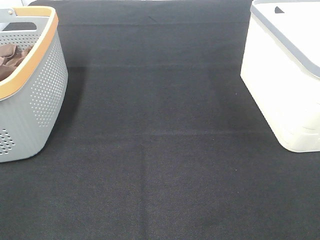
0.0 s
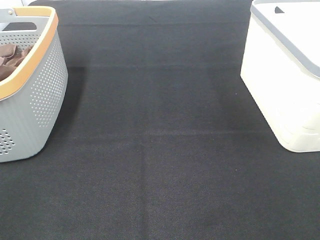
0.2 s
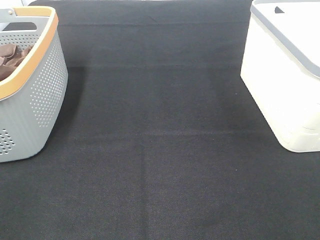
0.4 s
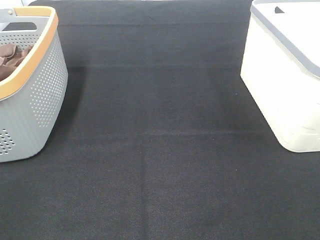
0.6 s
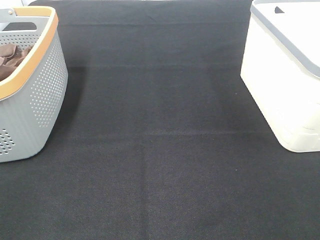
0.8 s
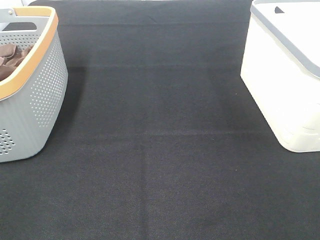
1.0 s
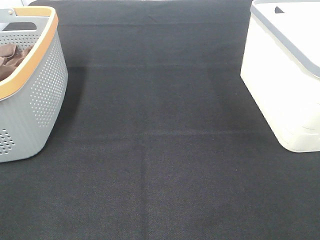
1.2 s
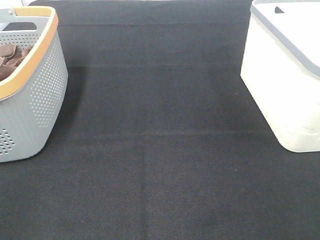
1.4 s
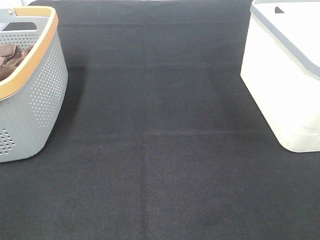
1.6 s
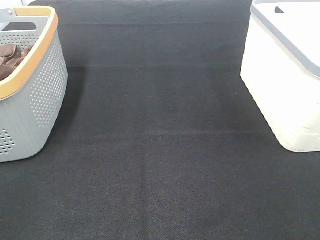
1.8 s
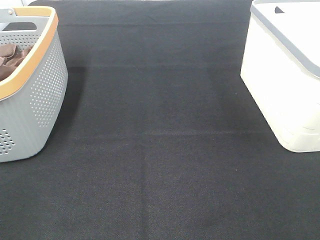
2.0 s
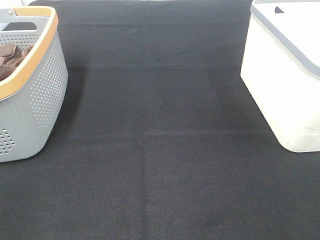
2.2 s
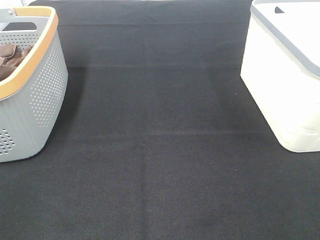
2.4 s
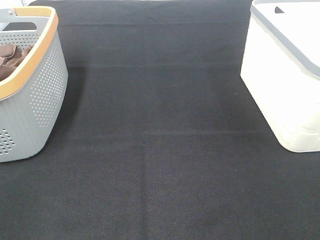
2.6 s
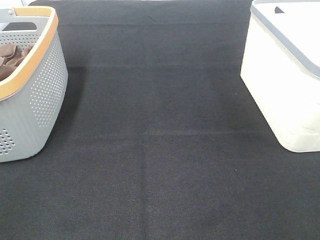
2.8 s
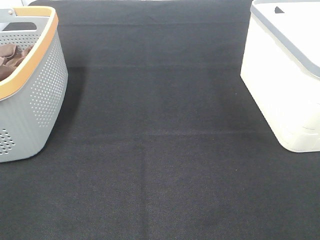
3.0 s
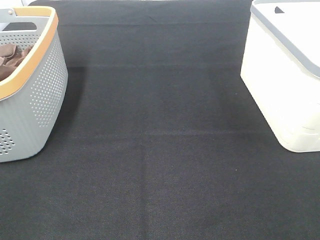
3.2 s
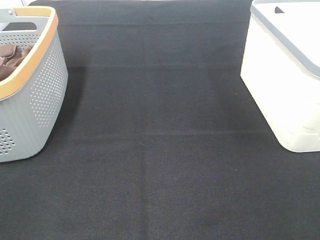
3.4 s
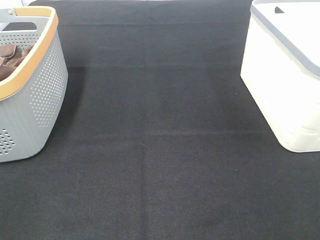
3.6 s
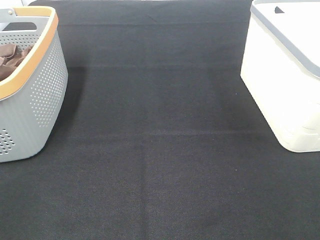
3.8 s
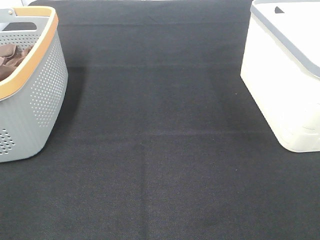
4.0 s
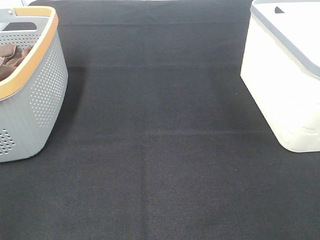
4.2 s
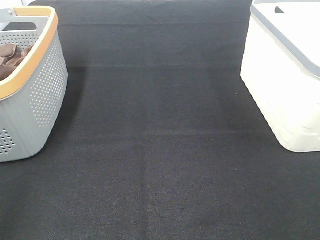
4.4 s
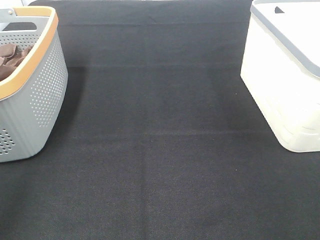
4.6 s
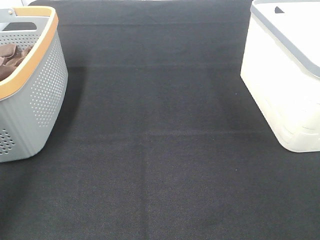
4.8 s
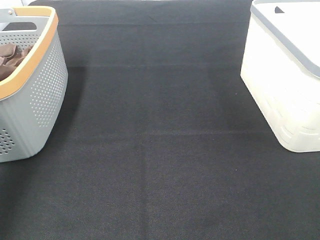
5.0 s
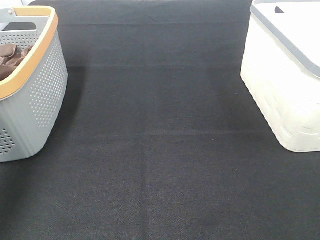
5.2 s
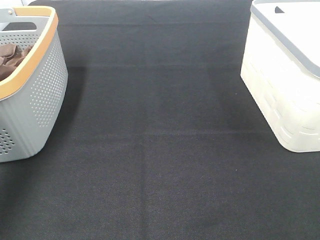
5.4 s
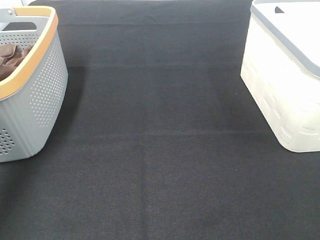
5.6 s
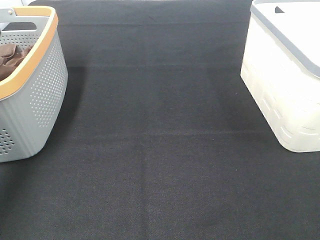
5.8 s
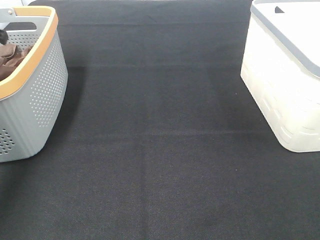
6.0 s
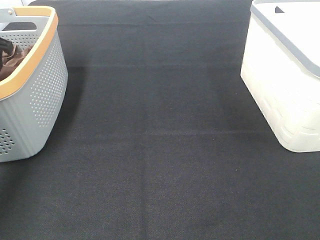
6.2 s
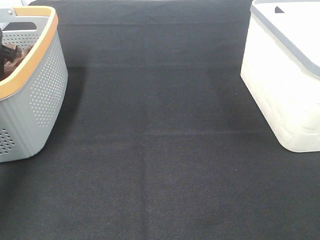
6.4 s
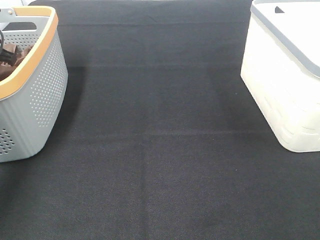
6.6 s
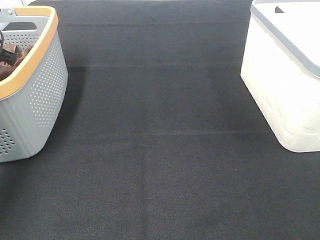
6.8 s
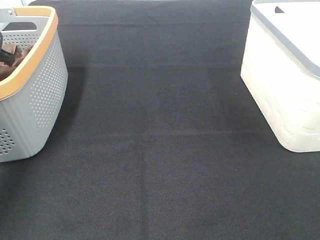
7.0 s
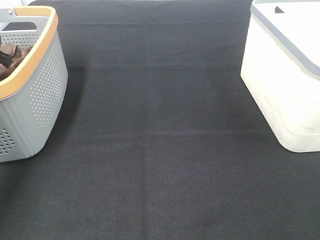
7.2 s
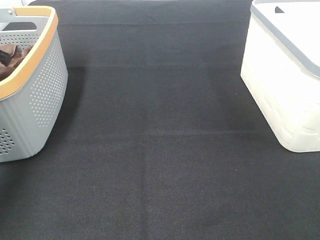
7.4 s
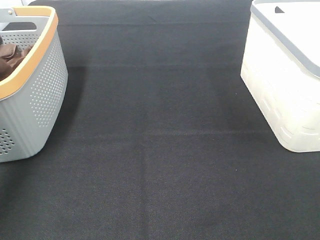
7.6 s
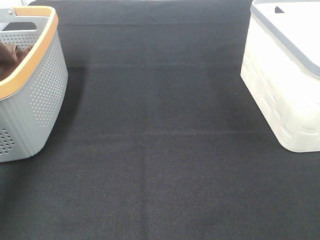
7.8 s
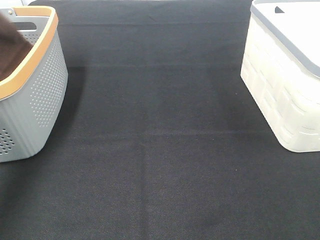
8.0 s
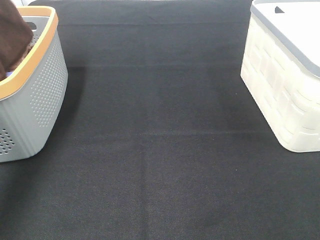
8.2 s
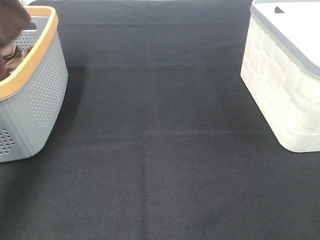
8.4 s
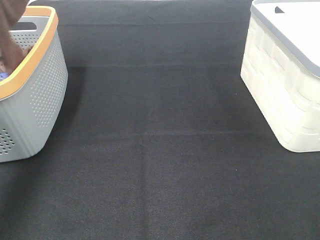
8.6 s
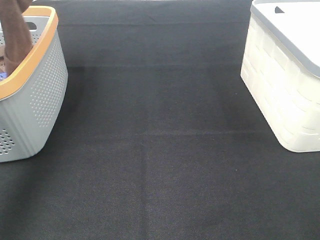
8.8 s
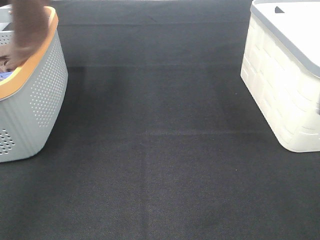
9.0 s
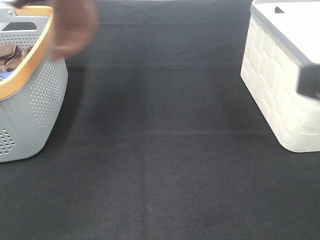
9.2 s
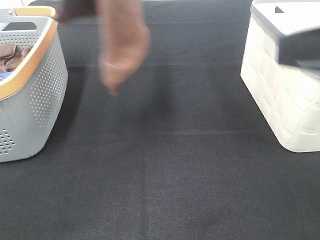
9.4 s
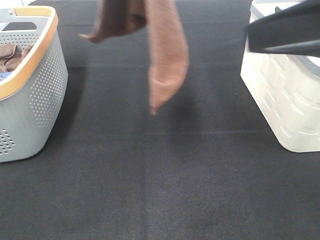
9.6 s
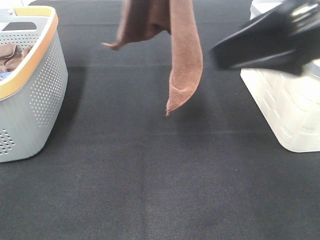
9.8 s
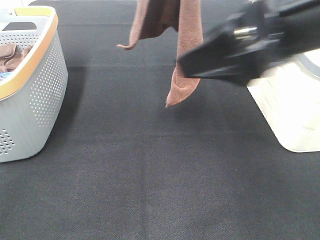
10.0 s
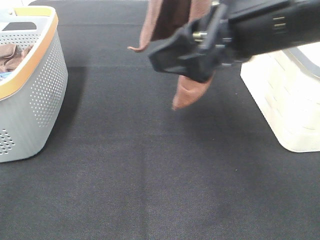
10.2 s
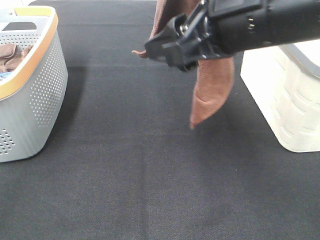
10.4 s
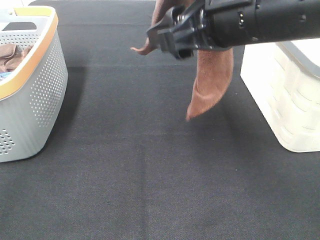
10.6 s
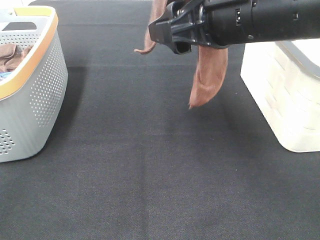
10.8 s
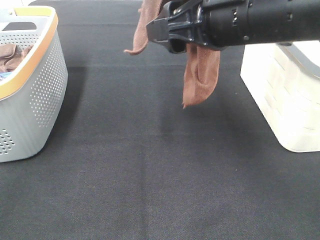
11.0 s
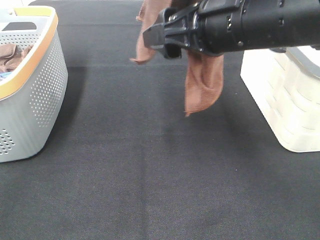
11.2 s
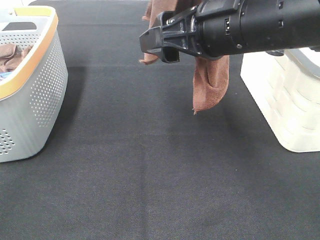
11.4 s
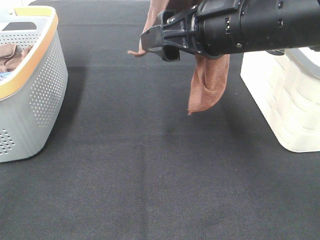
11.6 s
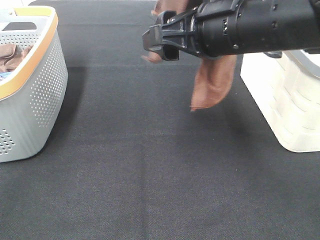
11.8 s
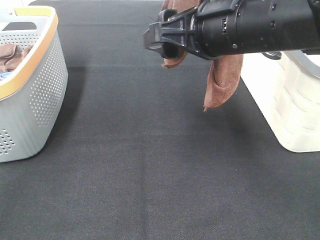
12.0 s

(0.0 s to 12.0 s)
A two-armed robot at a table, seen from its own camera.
Task of the whole recording: Remove the towel and place it.
Step, 7.8 s - 11.4 s: Right hand: grab a corner of the brown towel and straighten it.
0.0 s - 3.0 s: The two grippers keep their place.
4.4 s - 6.0 s: The left gripper shifts roughly 35 cm forward.
7.6 s - 9.0 s: The right gripper moves forward, roughly 10 cm. Meanwhile the left gripper goes some 30 cm upward, to the right and backward.
9.0 s - 10.4 s: The right gripper is displaced forward and to the left by roughly 20 cm. Meanwhile the left gripper heads to the right, covering approximately 20 cm.
10.4 s - 12.0 s: The grippers stay close to where they were, moving slightly.

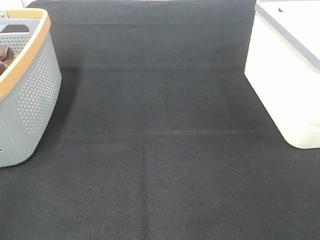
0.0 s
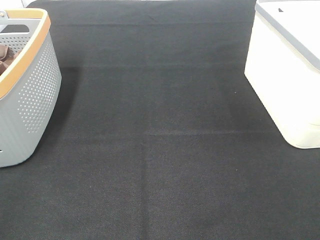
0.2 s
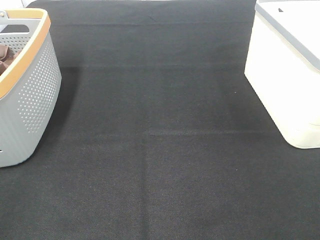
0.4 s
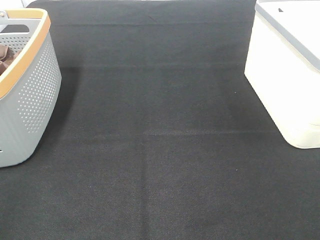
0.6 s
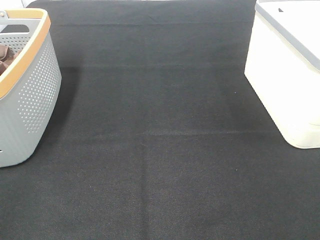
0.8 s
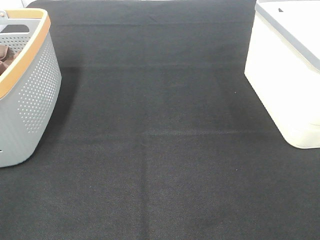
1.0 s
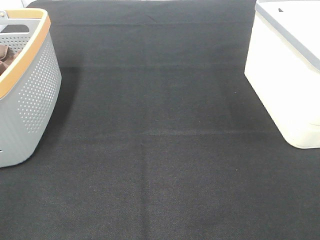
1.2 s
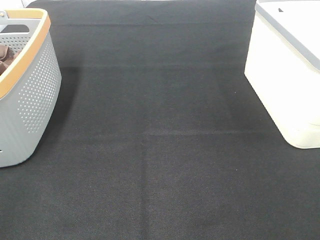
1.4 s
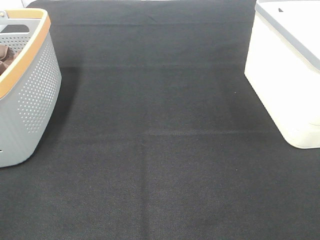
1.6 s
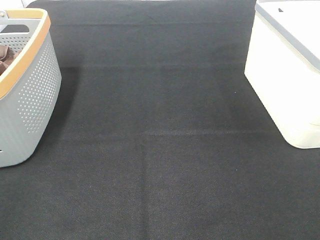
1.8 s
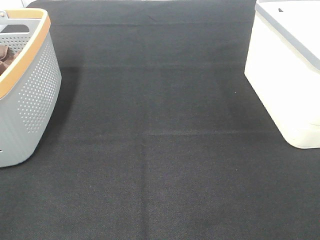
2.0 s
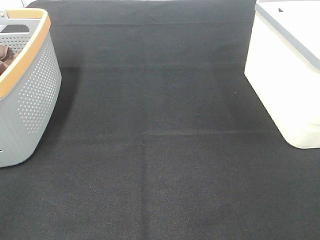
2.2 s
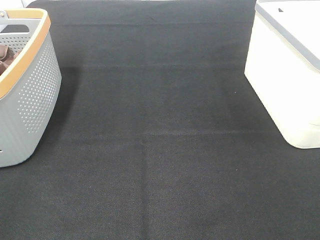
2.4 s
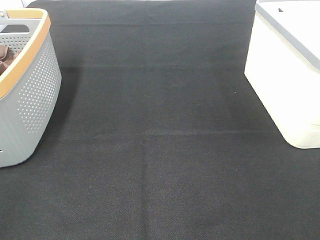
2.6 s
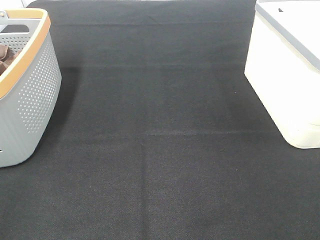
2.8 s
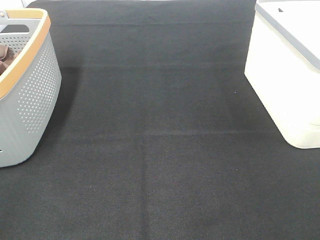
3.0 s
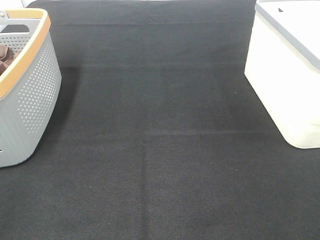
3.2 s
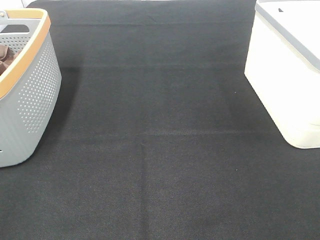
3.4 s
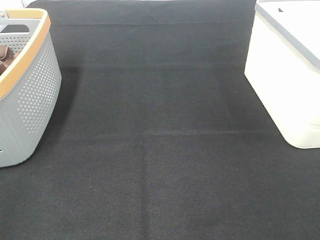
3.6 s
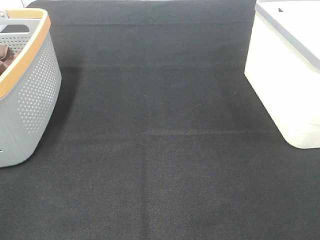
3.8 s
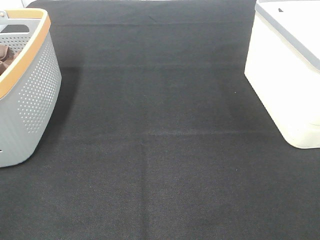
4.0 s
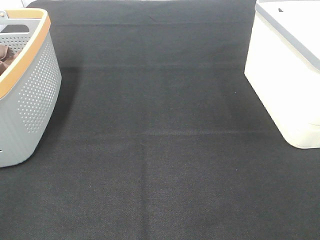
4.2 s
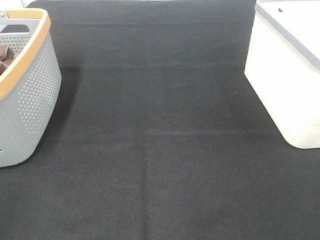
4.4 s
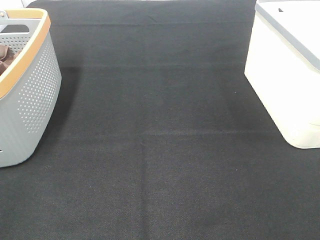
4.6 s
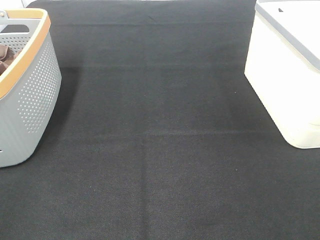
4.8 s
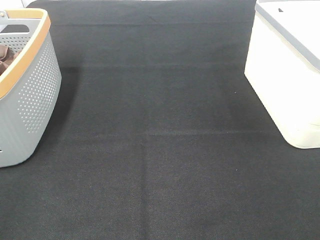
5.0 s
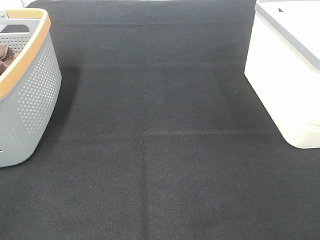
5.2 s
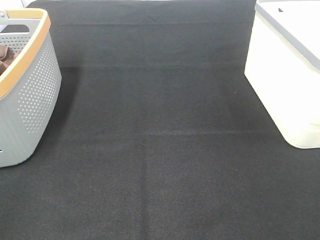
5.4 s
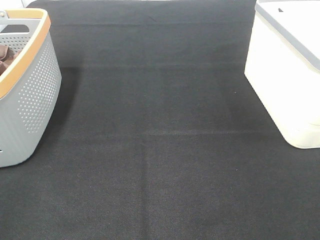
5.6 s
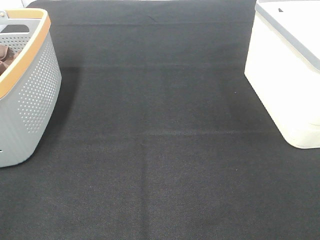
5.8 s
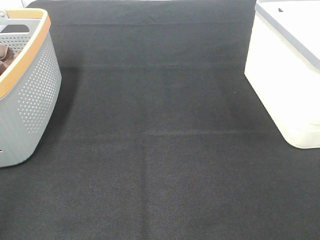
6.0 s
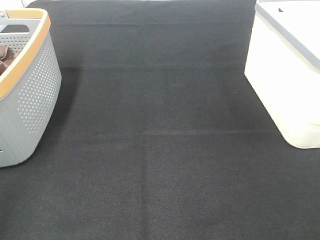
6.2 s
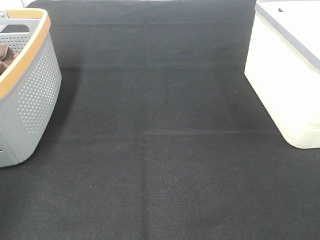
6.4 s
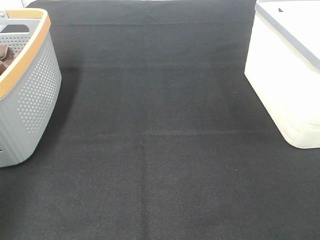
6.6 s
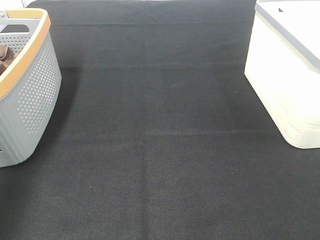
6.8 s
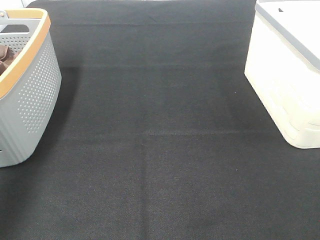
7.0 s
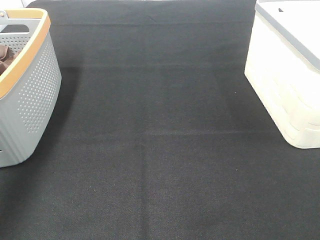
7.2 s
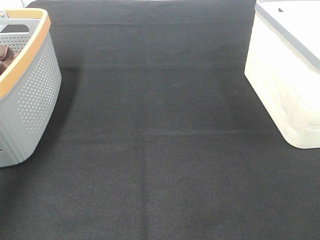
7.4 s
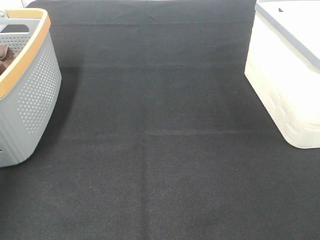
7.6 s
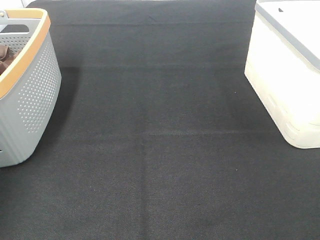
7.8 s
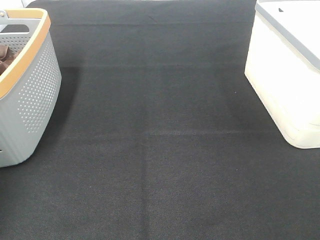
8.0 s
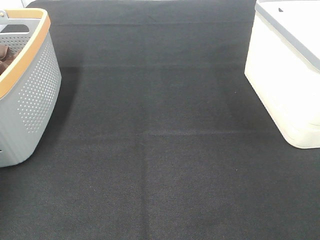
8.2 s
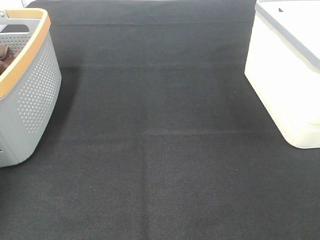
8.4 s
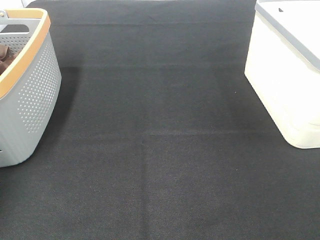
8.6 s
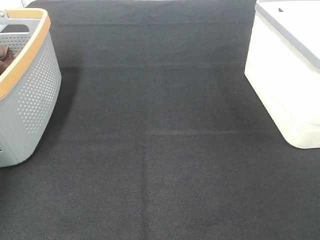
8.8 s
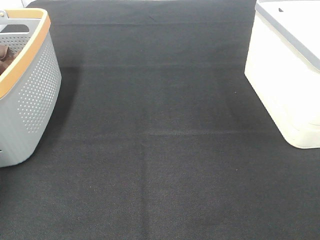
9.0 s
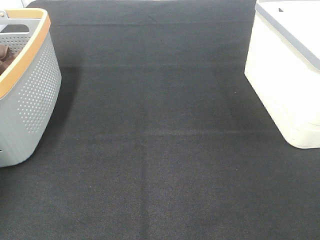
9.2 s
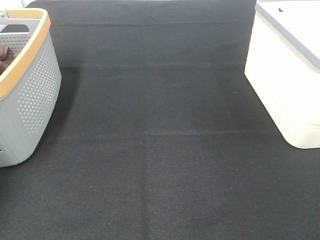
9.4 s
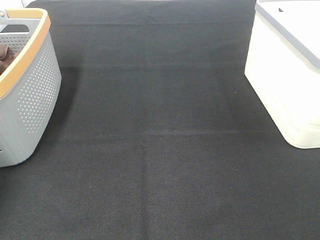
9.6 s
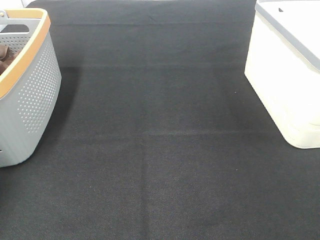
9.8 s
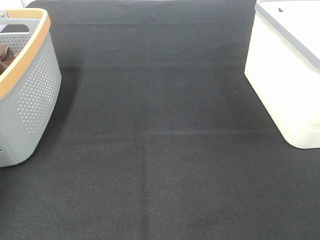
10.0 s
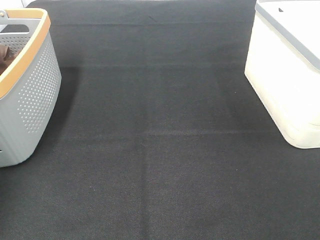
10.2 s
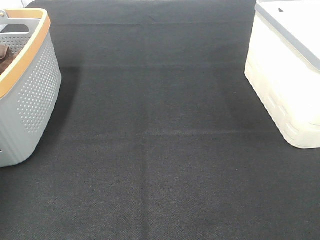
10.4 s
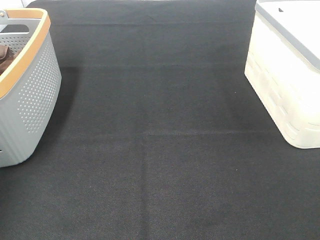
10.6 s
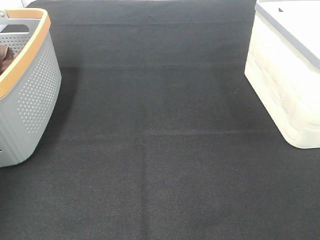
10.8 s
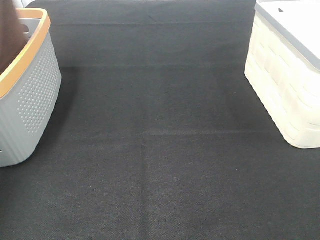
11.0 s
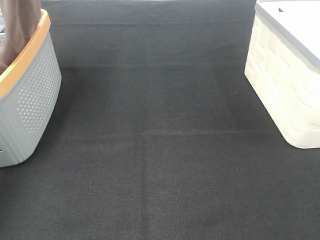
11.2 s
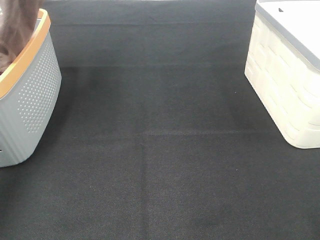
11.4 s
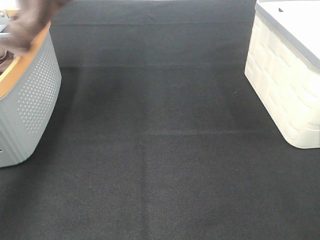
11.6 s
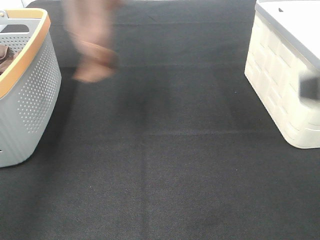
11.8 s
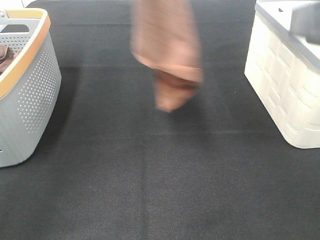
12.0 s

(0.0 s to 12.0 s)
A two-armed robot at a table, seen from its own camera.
Task of the whole recording: Remove the towel and place it.
0.0 s - 4.4 s: Both grippers stay put.
6.0 s - 7.6 s: The left gripper is displaced forward by some 35 cm.
10.4 s - 12.0 s: The left gripper is displaced to the right and upward by about 30 cm, while the right gripper goes roughly 15 cm forward, upward and to the left.
